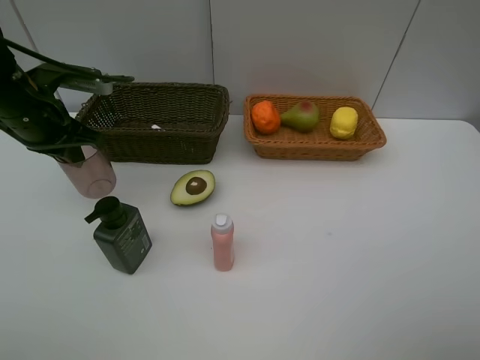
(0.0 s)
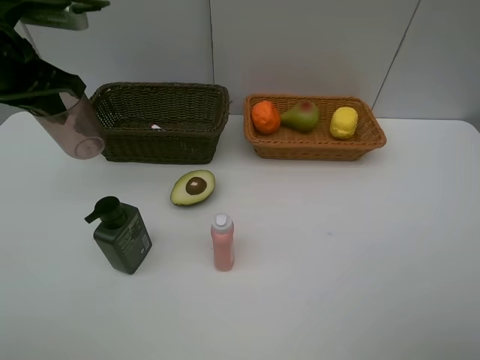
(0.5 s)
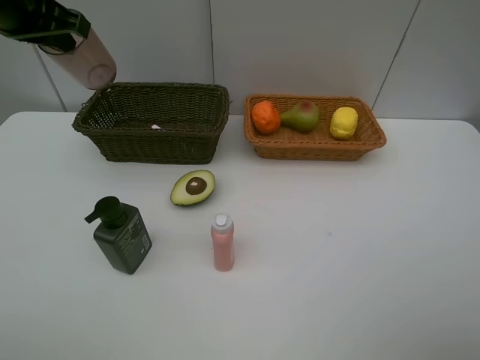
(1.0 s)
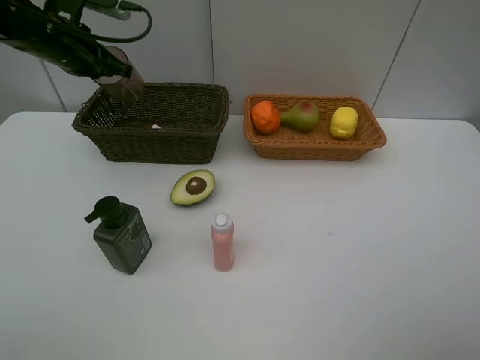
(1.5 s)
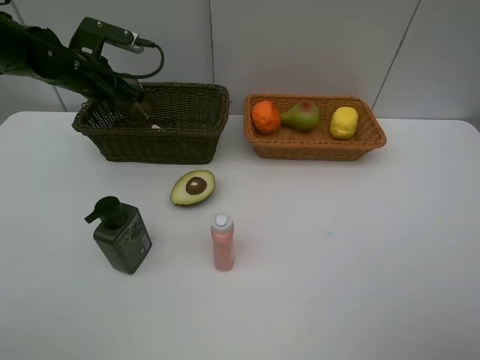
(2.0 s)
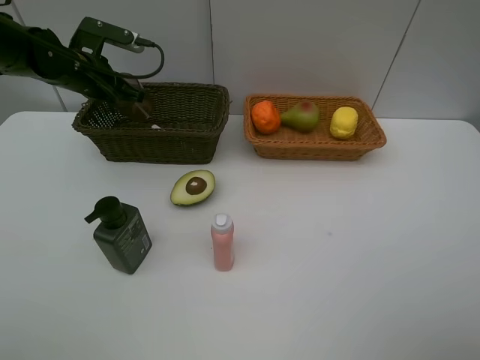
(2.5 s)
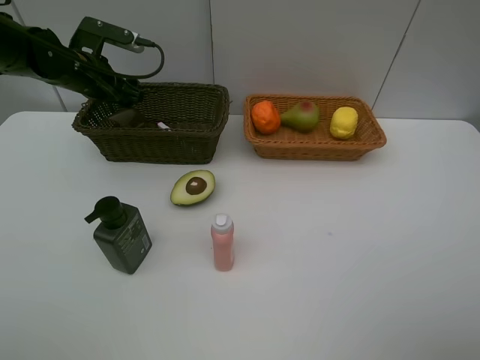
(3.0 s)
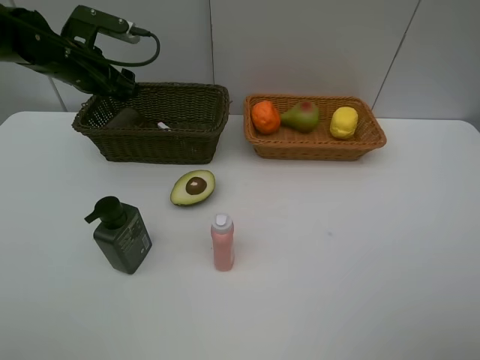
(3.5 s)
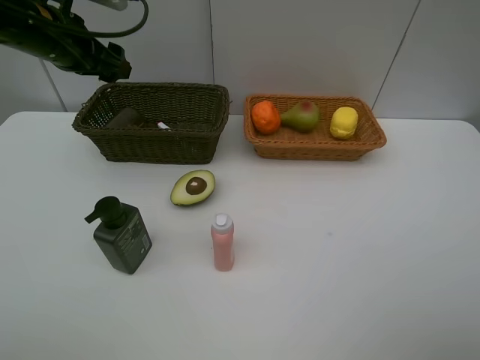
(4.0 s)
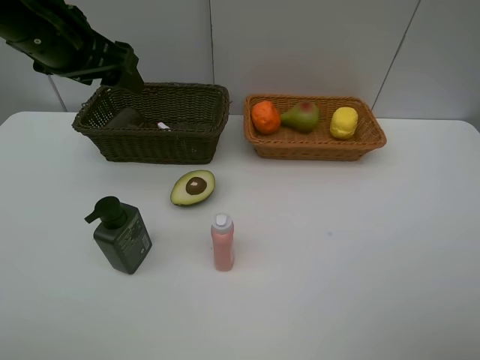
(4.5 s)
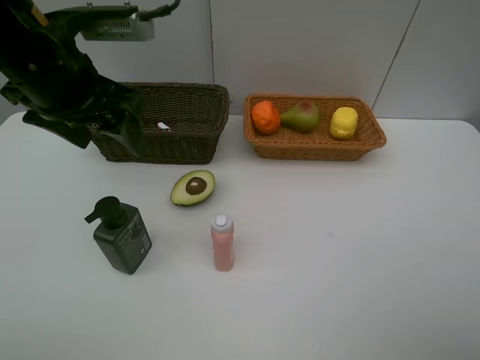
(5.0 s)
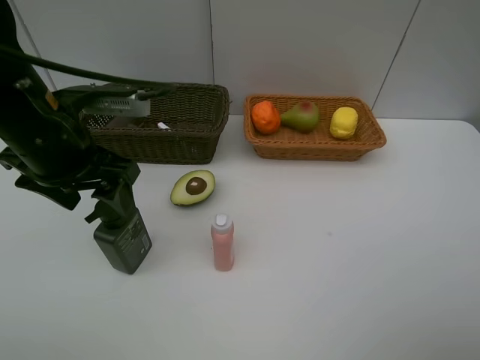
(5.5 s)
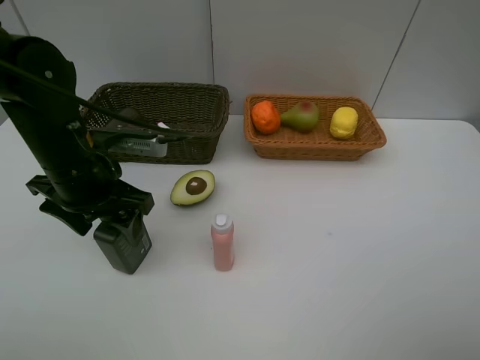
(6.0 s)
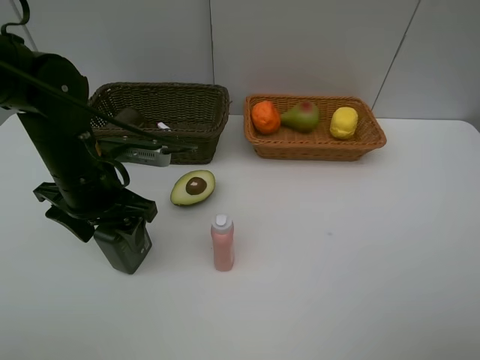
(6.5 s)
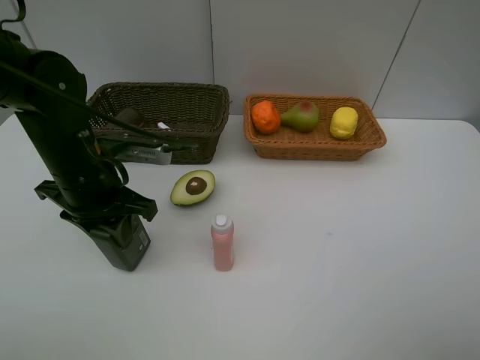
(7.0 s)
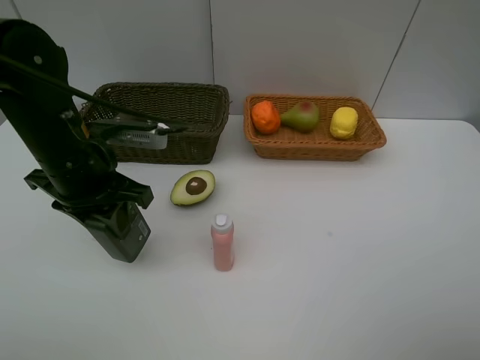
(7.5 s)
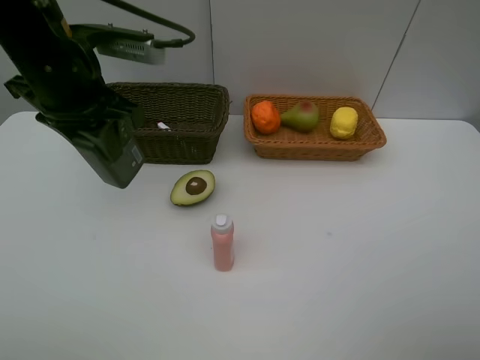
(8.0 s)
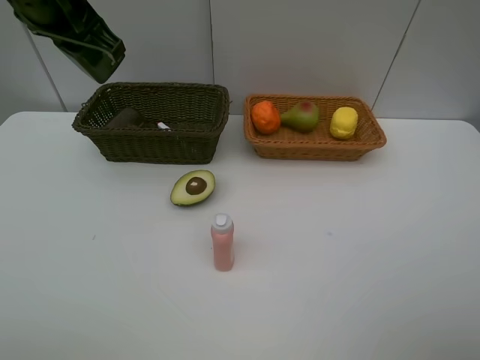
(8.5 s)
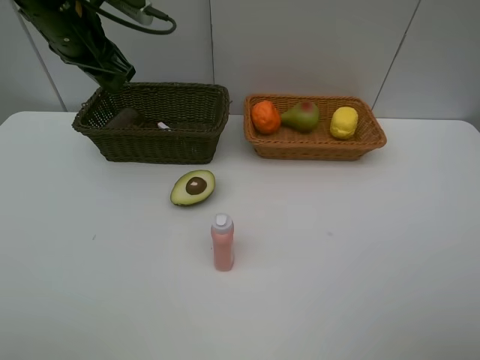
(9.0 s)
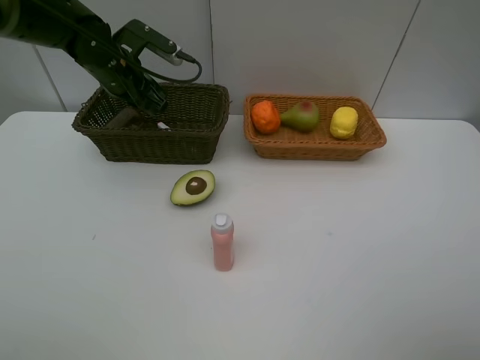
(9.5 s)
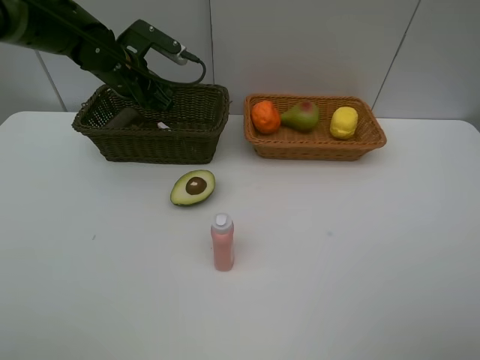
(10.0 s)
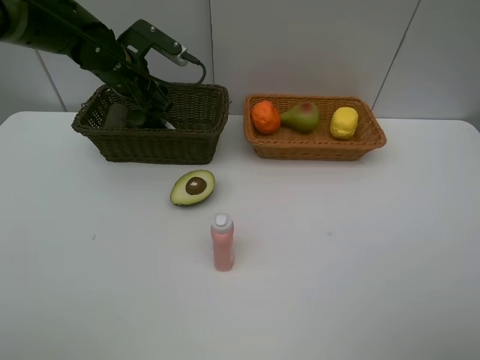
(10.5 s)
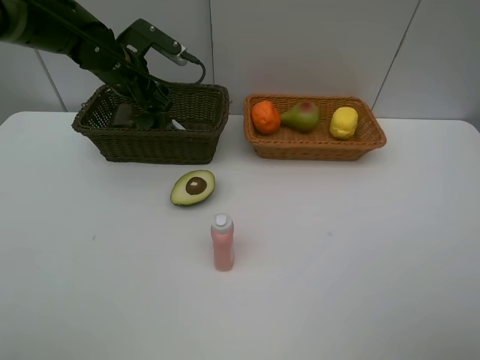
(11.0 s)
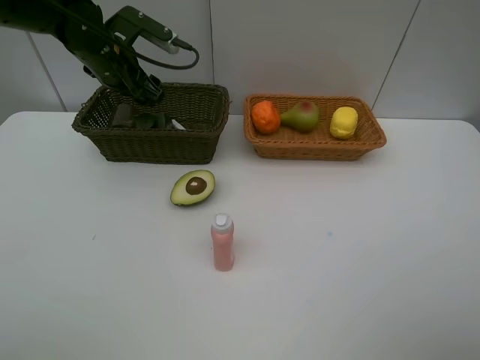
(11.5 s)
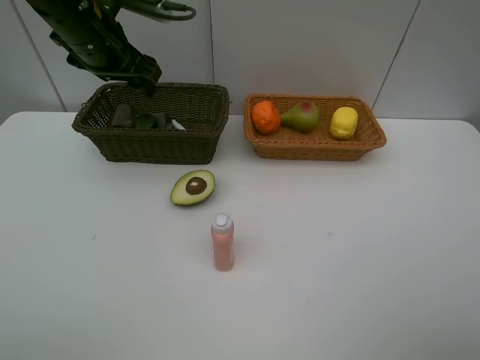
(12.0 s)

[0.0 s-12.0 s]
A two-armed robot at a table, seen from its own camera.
Task of the whole recording: Place multiple objects separately in different baskets.
Step, 0.0 to 3.5 s: Place the red cup in the dark basket with left gripper.
Step, 4.0 to 7.5 s: Pick up the hard facial cleanser with left gripper.
Step, 8.0 to 11.5 s: Place the hard facial cleanser in the dark basket with left gripper.
0.0 to 2.0 s: The left gripper heads forward, covering roughly 10 cm, and travels upward and back again, about 10 cm each way.
2.0 to 4.0 s: The left gripper shifts roughly 10 cm upward and backward, and opens.
4.0 to 6.0 s: The left gripper goes approximately 15 cm backward, downward and to the right.
6.0 to 8.0 s: The left gripper goes roughly 10 cm upward, and closes up.
8.0 to 10.0 s: The left gripper moves forward and downward, approximately 20 cm.
10.0 to 12.0 s: The left gripper goes some 10 cm upward and backward, and opens up.

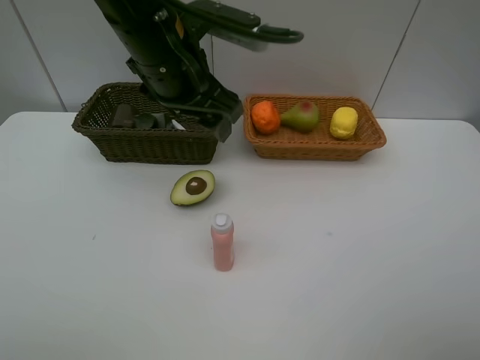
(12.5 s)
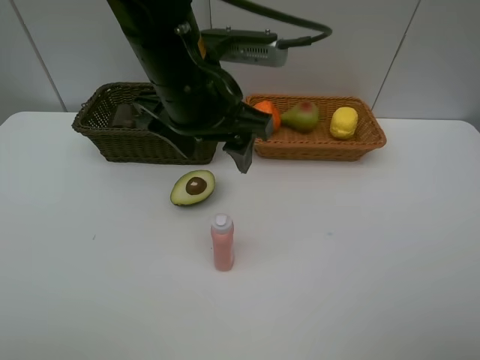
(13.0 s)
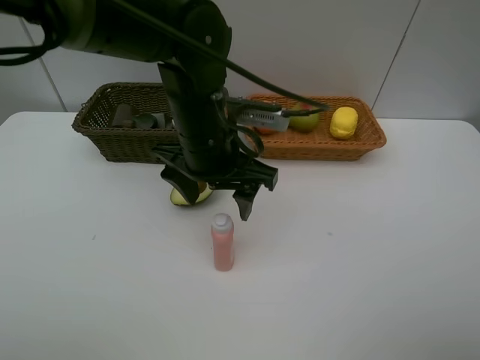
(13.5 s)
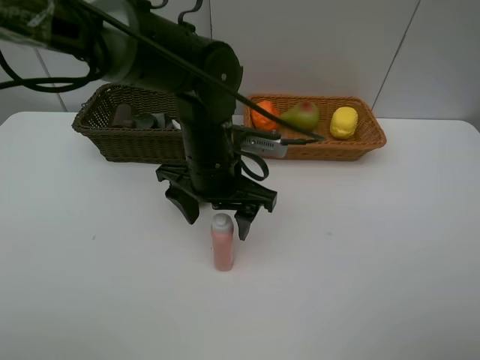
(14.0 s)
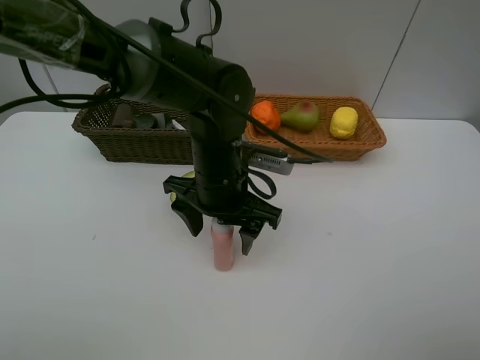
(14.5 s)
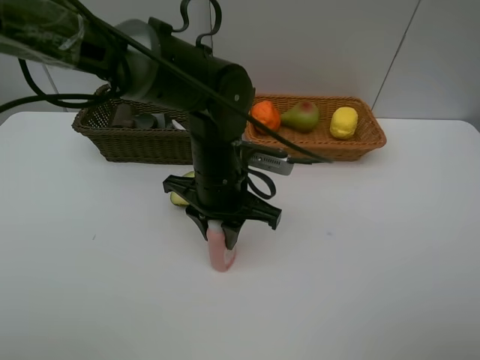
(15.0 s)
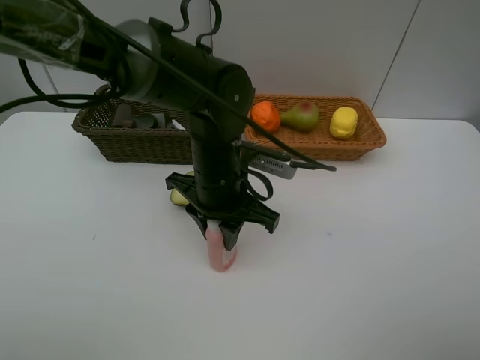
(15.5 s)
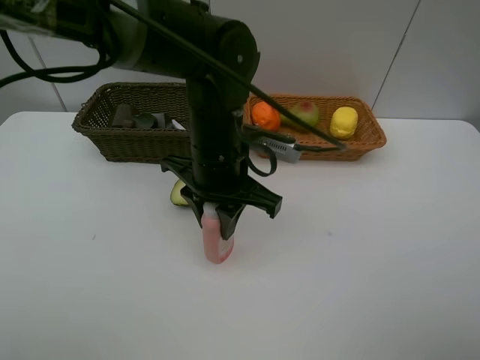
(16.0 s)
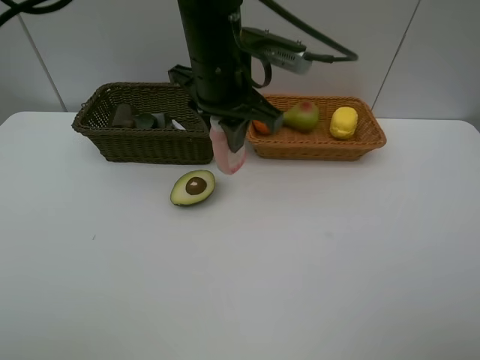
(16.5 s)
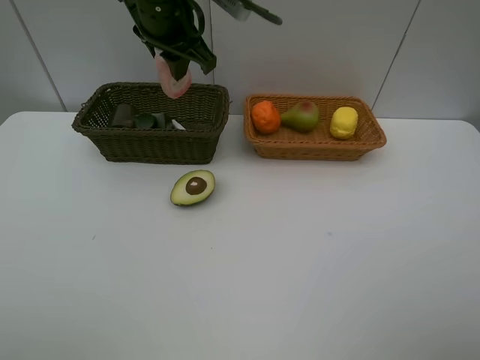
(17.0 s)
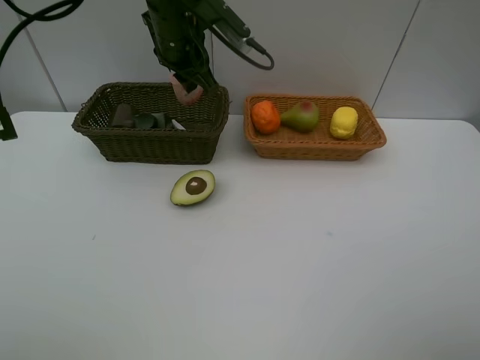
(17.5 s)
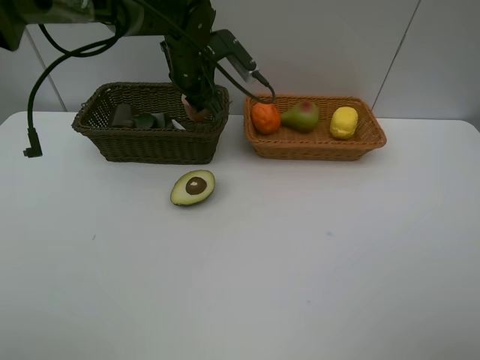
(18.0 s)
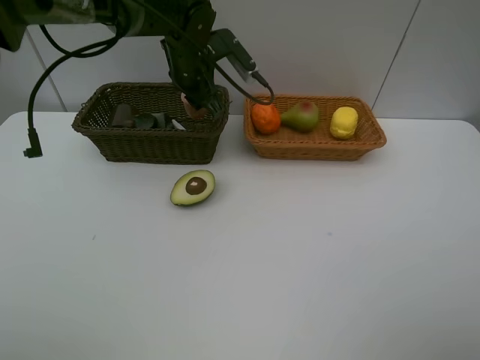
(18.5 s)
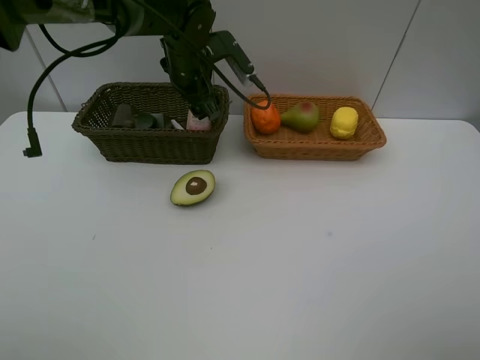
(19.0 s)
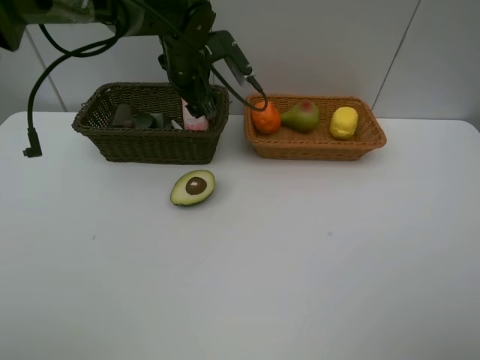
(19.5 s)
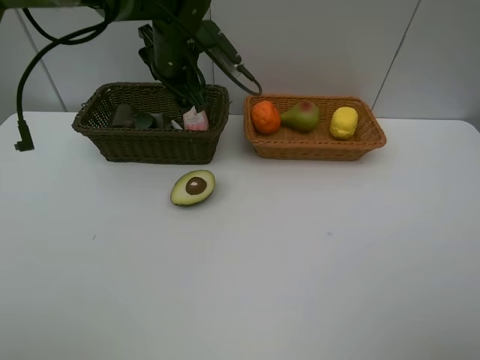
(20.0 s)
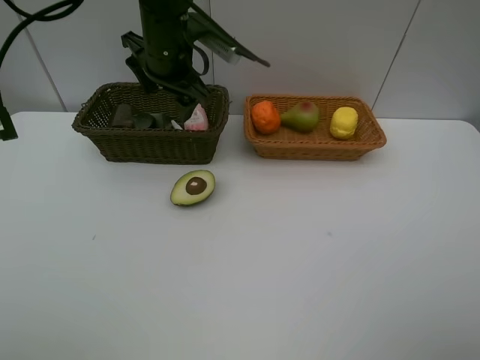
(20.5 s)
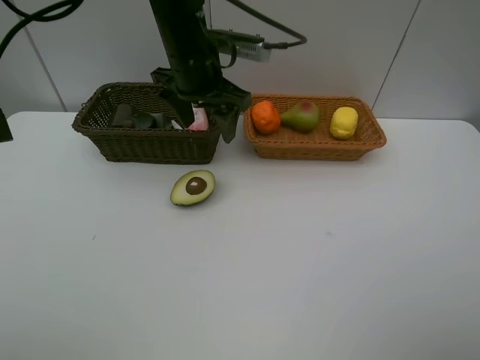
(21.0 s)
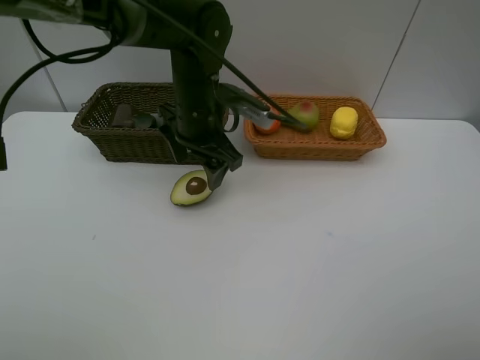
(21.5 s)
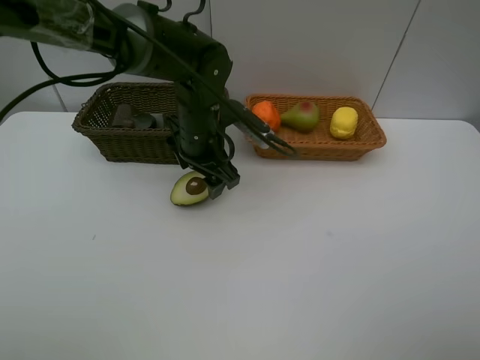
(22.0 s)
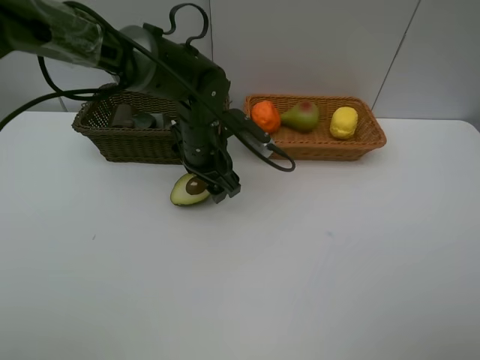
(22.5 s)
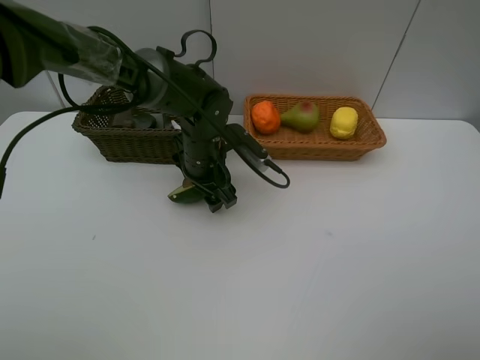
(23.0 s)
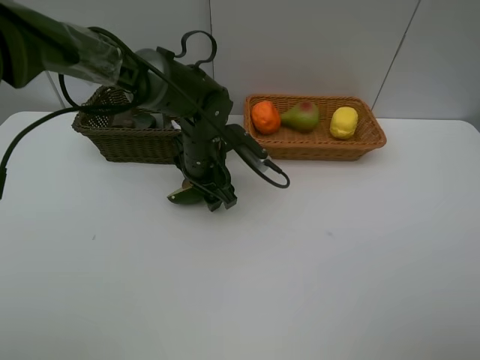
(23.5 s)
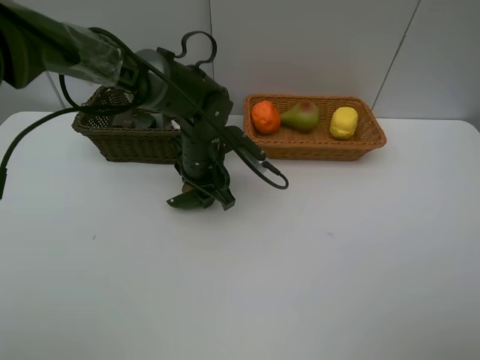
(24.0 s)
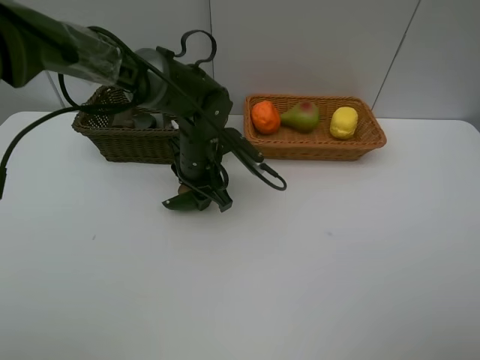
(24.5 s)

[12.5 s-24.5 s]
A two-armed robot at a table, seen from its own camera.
Task of the whole recording: Place multiple objects separately in different baskets.
Step, 12.5 to 16.0 s: Pick up the laundry detergent with left gripper.
Step, 16.5 to 19.5 s: Place the laundry detergent in the dark basket with left gripper.
12.5 to 14.5 s: The left gripper moves downward, about 10 cm.
14.5 to 16.5 s: The left gripper heads upward and forward, covering approximately 15 cm, and closes its fingers.
16.5 to 18.5 s: The left gripper goes roughly 15 cm forward and downward.
18.5 to 20.5 s: The left gripper moves about 5 cm, and opens.
20.5 to 22.5 s: The left gripper shifts roughly 15 cm downward and backward.
22.5 to 24.5 s: The left gripper closes up.

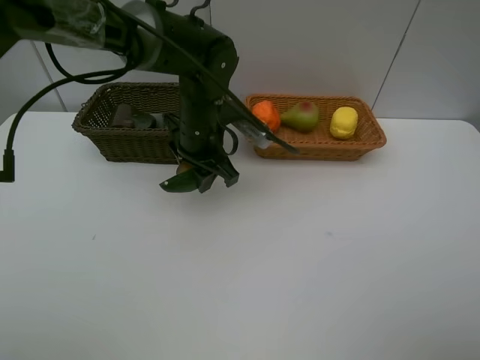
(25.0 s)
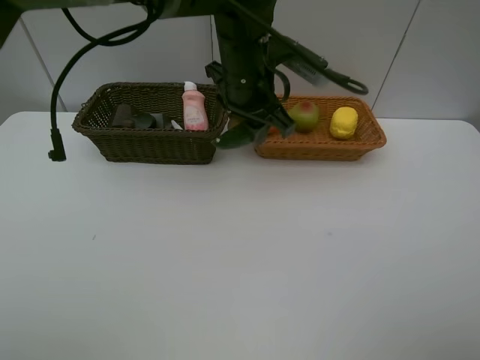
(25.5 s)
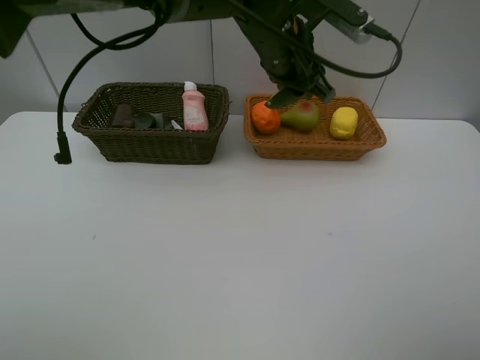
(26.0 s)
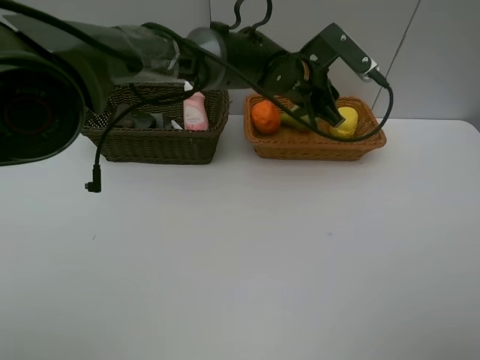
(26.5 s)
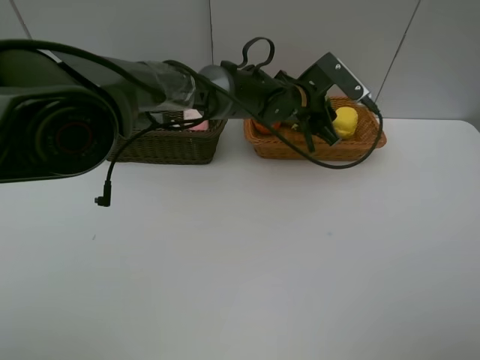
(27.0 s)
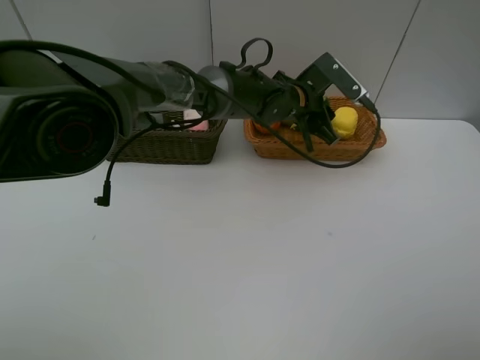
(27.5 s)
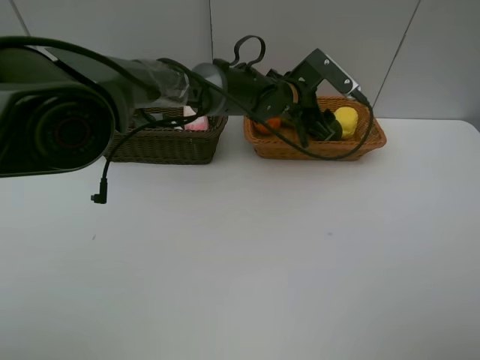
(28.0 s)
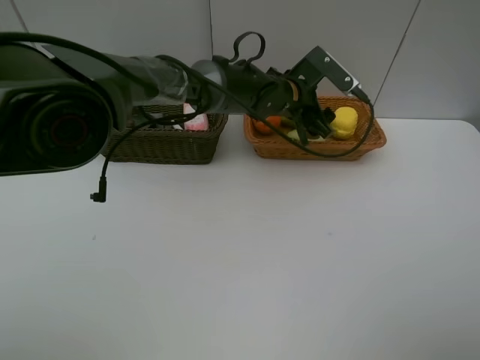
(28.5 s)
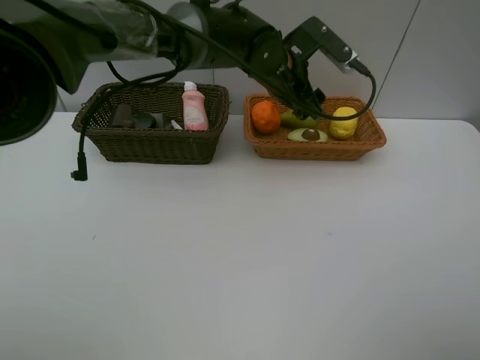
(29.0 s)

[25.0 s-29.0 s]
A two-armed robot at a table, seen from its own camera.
Task of the whole recording: Place multiple objects separately in different baskets.
Step, 25.5 to 29.0 s: Place the avocado in the light basket with left gripper.
25.0 to 27.0 s: The left gripper moves to the right and forward, roughly 15 cm.
27.0 to 29.0 s: The left gripper is displaced upward by about 5 cm, and opens up.
